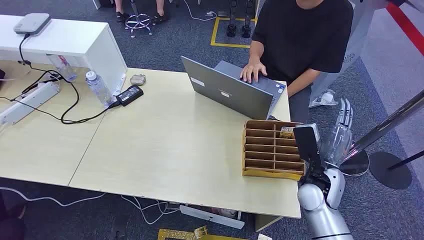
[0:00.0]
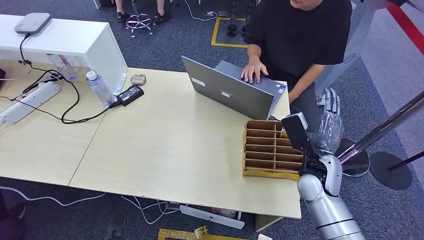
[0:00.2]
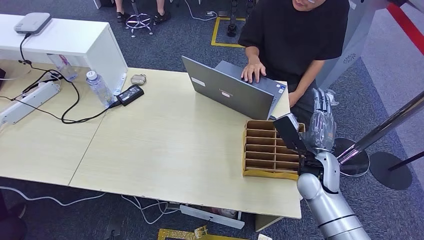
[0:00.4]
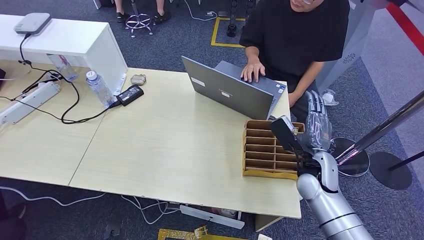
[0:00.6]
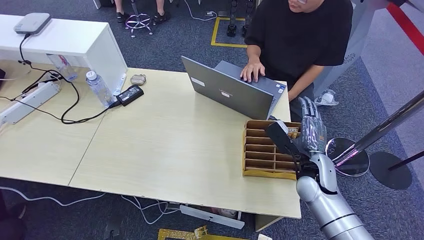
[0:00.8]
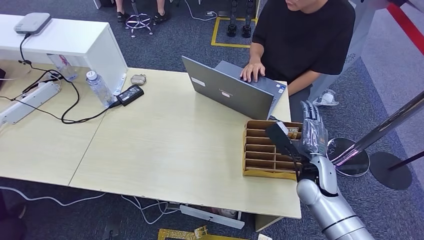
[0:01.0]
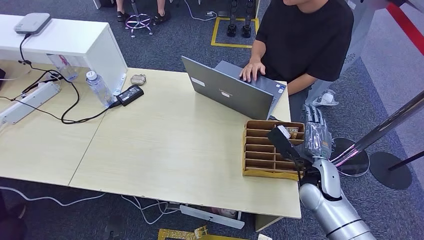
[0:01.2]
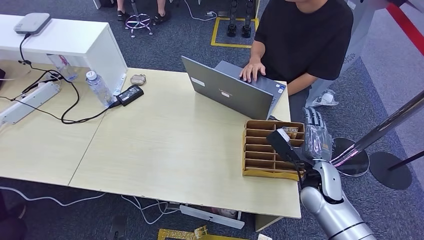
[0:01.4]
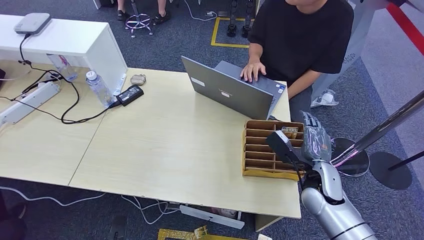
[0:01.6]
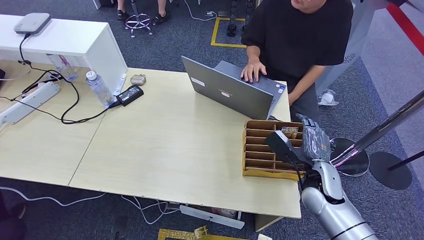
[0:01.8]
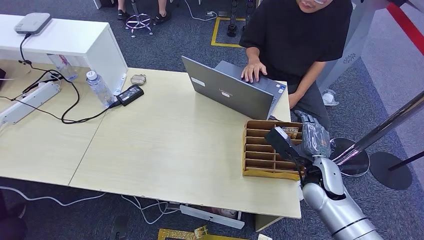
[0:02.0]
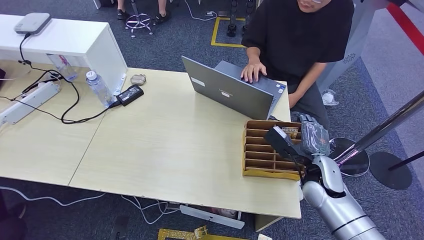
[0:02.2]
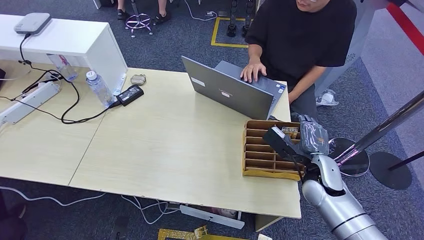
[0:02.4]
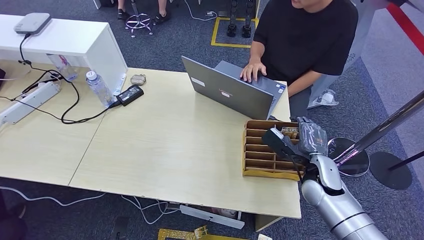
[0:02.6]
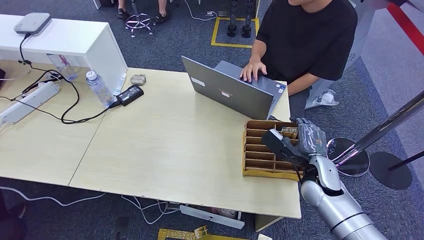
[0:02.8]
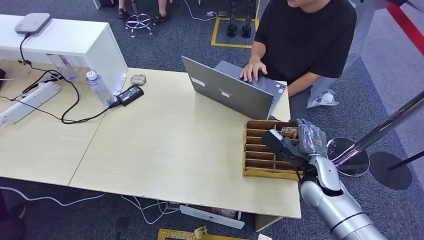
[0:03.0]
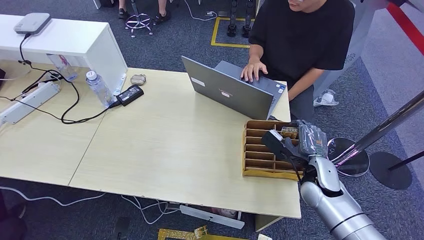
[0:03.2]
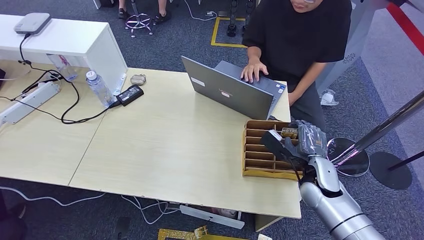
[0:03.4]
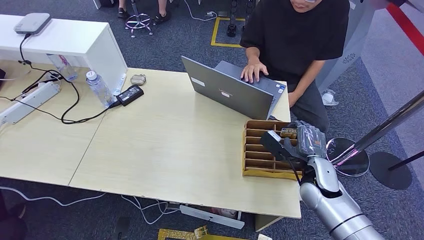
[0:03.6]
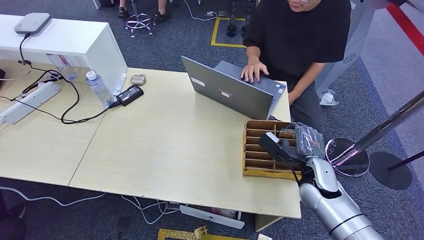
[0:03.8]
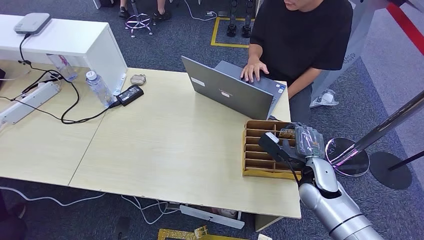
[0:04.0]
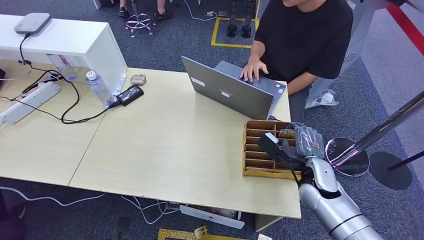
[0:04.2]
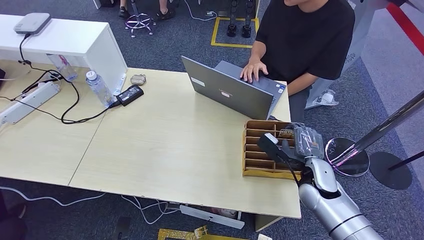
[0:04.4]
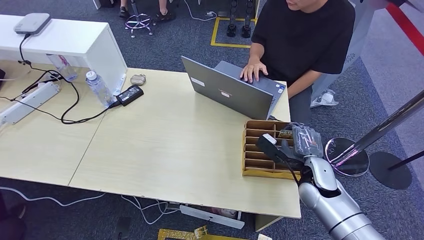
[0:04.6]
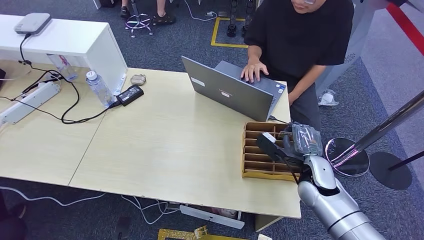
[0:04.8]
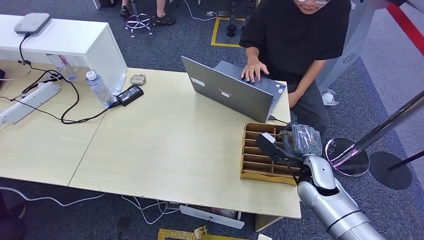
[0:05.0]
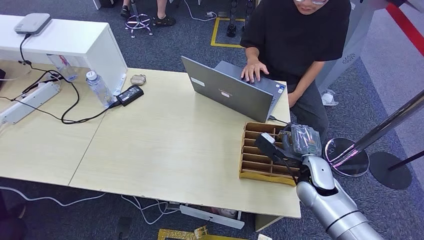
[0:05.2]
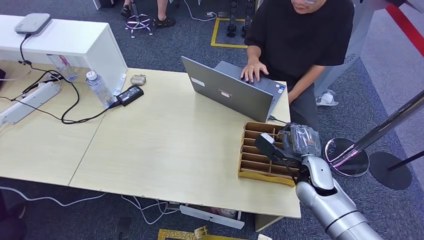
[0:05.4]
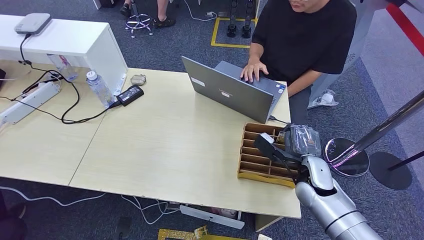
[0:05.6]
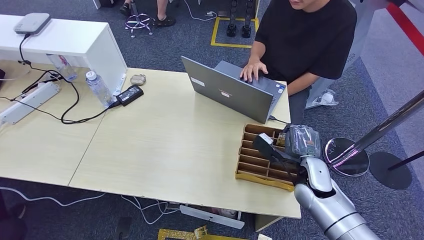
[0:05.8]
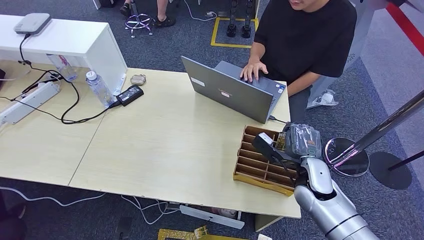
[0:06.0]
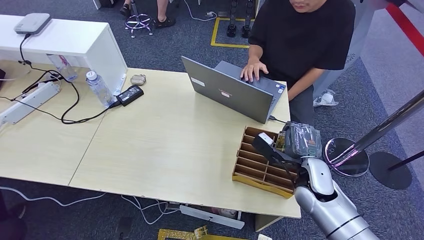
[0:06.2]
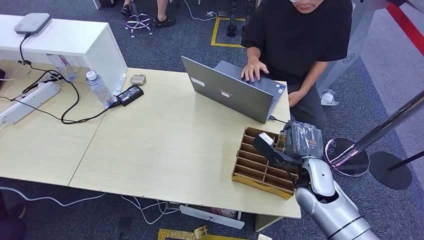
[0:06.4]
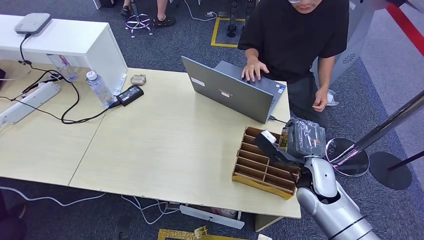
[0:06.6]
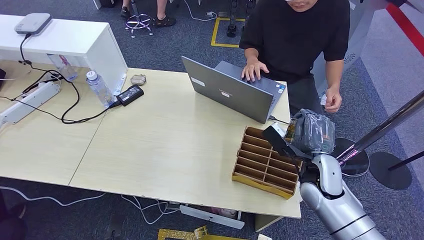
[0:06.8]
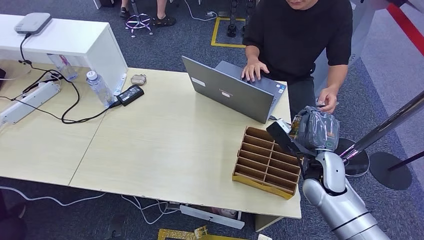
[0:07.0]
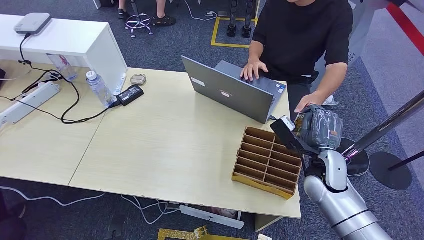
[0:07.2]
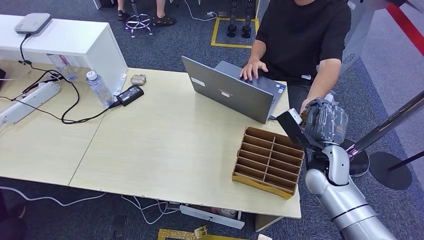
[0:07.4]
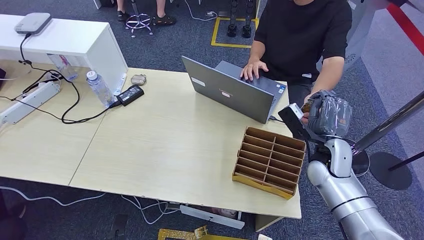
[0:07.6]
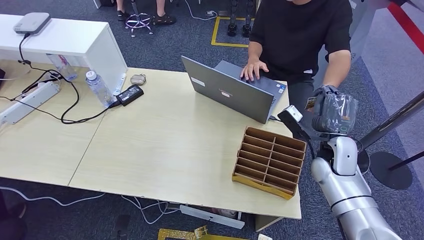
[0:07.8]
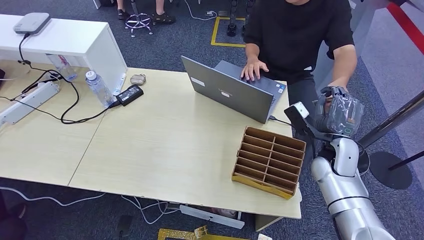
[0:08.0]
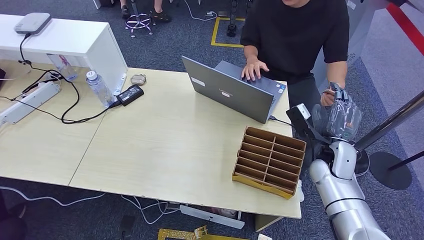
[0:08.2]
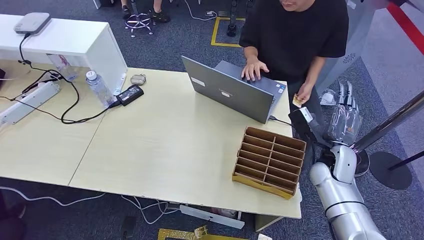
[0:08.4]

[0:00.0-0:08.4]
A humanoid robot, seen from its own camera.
Task of the whole recording: Pick up the card and hand it to the target person.
Step, 0:00.0 to 0:06.2: Pick up the key card from the card box.
Step, 0:06.4 to 0:08.2: Hand the key card to the target.
0:01.4 to 0:02.8: The hands make only small movements.
0:02.8 to 0:04.2: Both hands stay put.
0:04.2 to 0:05.6: The two hands keep their place.
0:05.6 to 0:07.0: There are only small adjustments of the hands.
0:07.0 to 0:08.4: The right hand ends up some 5 cm from where it was.

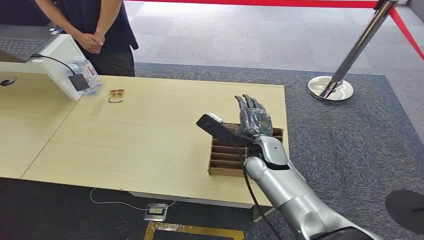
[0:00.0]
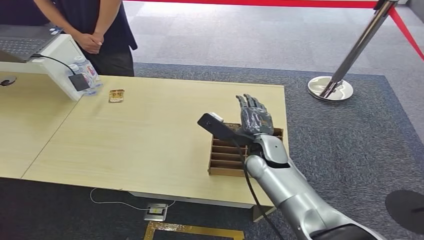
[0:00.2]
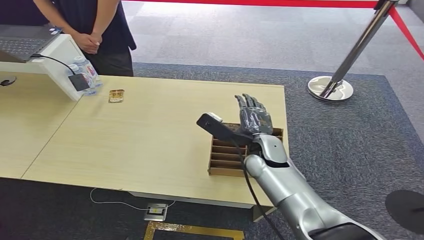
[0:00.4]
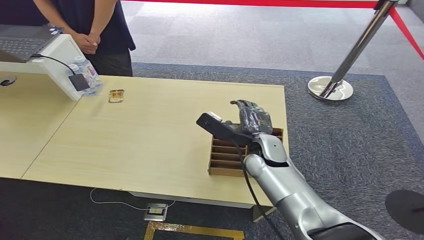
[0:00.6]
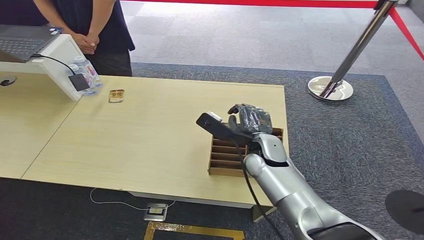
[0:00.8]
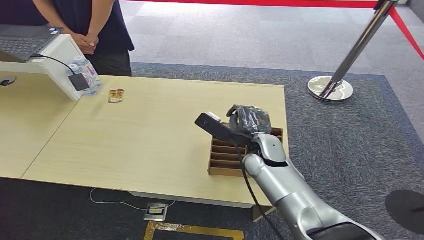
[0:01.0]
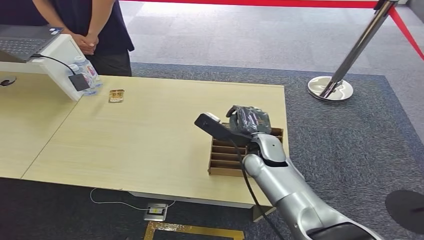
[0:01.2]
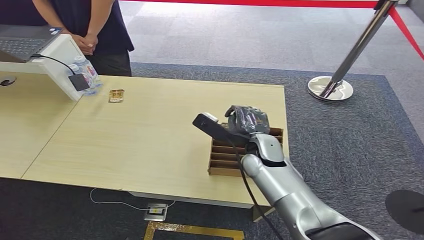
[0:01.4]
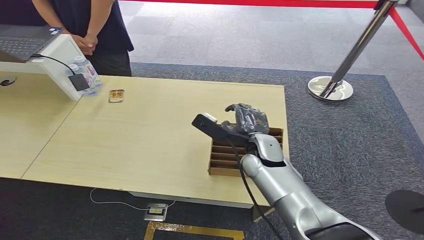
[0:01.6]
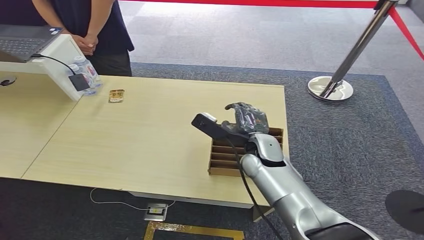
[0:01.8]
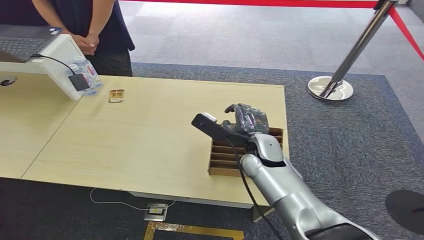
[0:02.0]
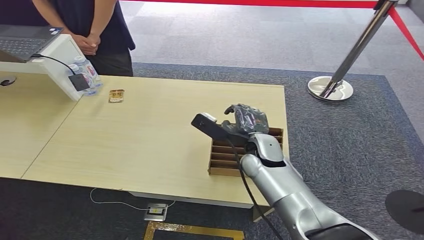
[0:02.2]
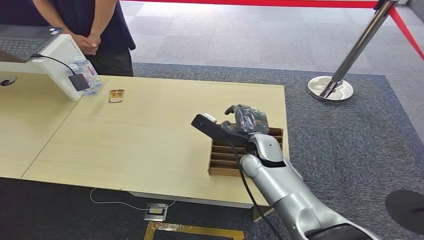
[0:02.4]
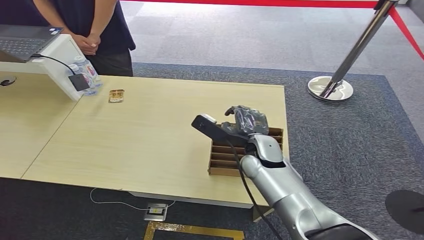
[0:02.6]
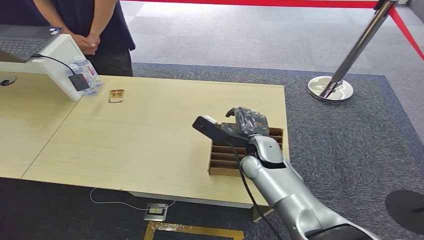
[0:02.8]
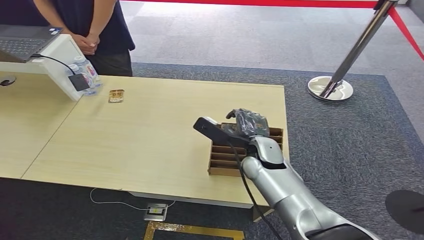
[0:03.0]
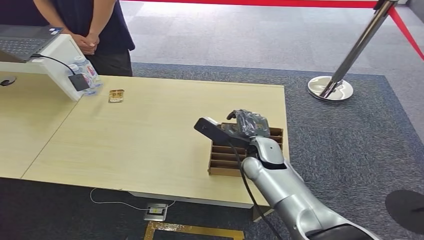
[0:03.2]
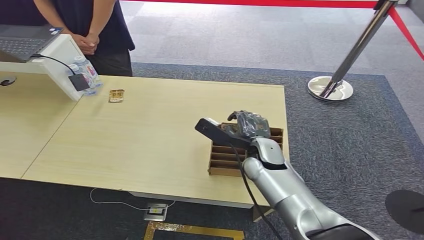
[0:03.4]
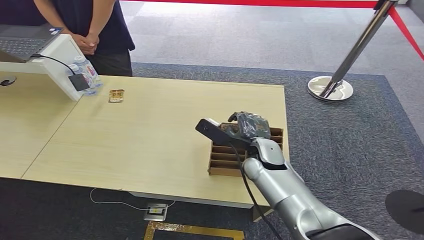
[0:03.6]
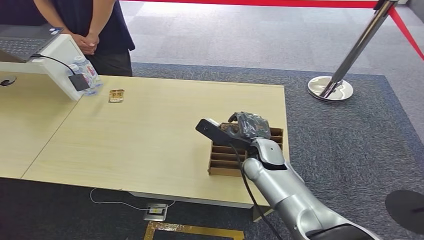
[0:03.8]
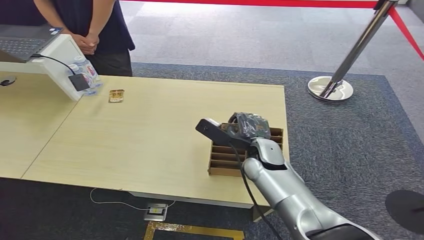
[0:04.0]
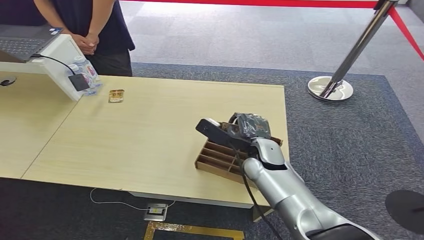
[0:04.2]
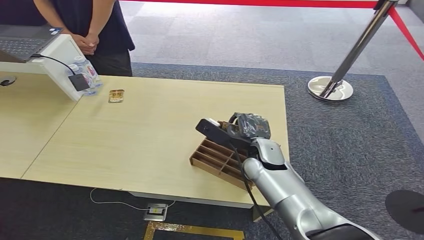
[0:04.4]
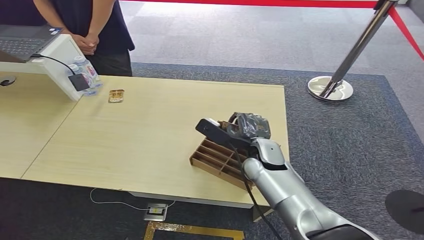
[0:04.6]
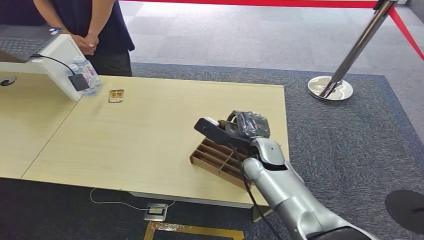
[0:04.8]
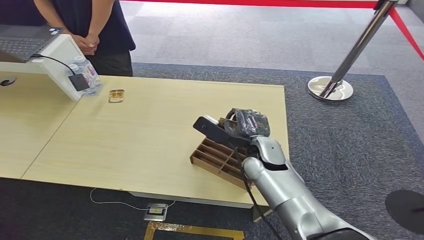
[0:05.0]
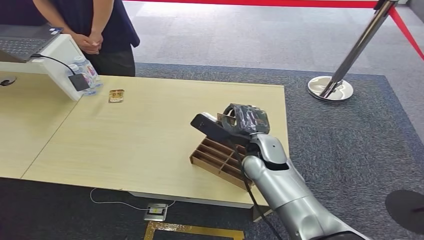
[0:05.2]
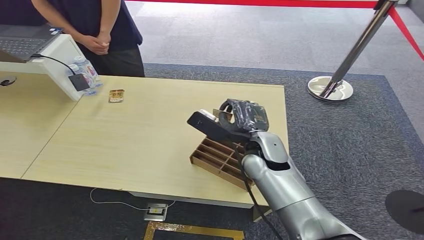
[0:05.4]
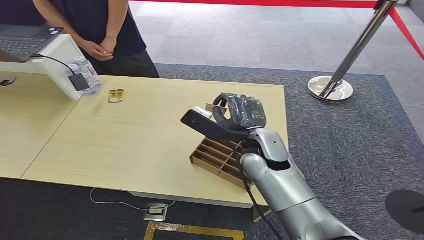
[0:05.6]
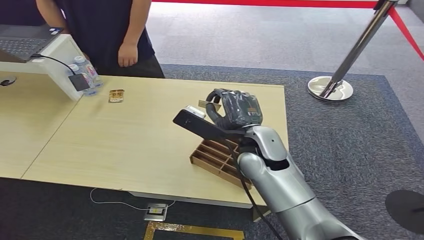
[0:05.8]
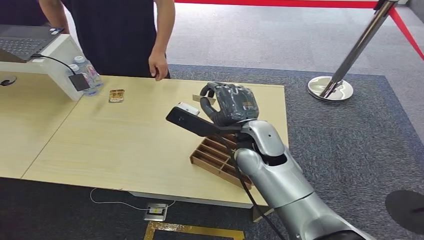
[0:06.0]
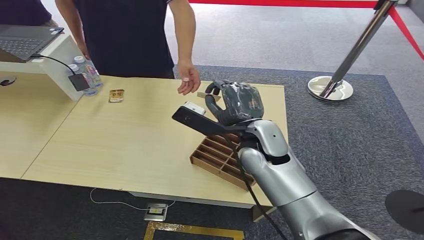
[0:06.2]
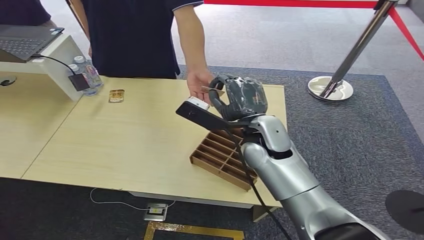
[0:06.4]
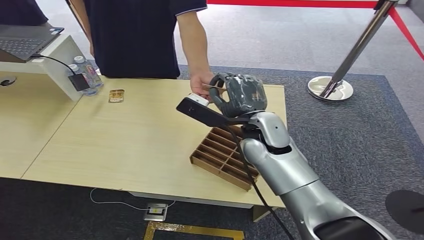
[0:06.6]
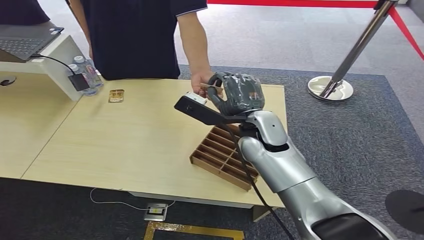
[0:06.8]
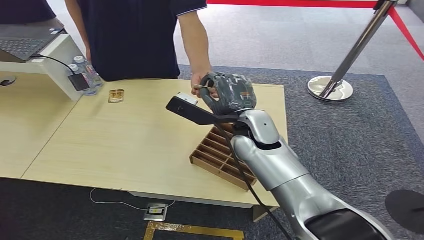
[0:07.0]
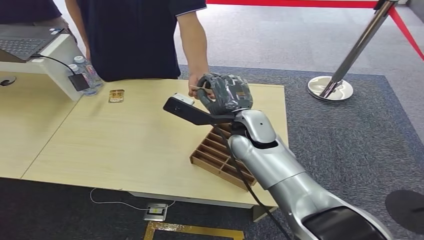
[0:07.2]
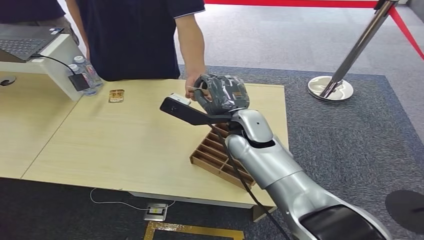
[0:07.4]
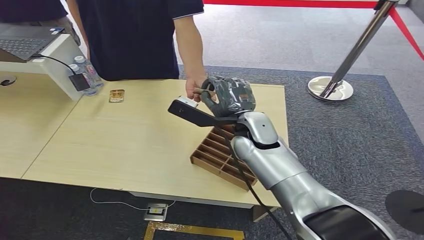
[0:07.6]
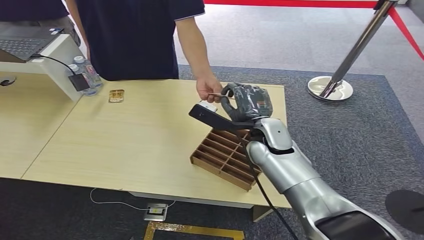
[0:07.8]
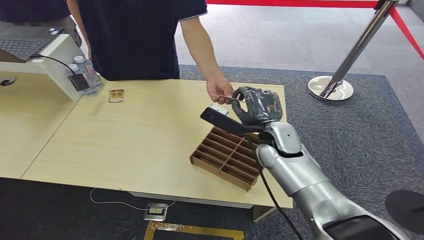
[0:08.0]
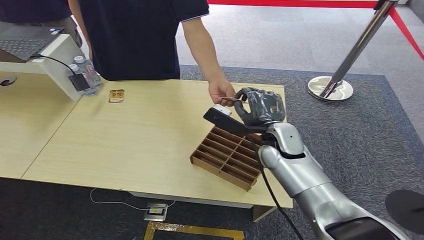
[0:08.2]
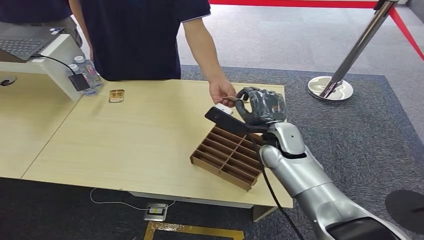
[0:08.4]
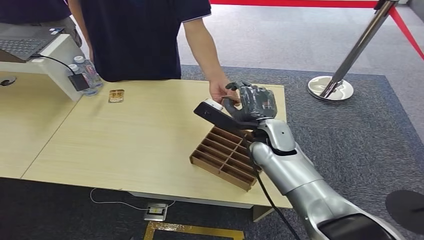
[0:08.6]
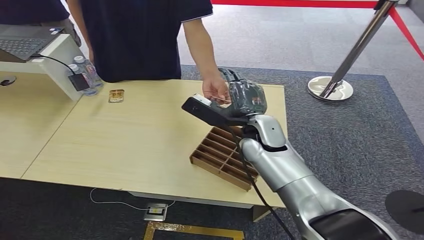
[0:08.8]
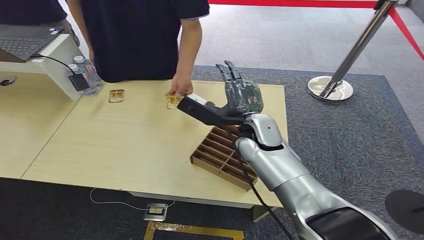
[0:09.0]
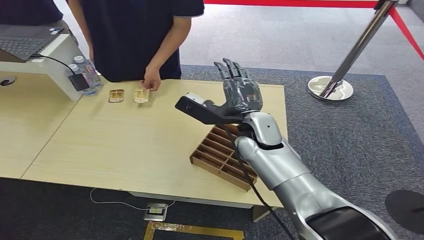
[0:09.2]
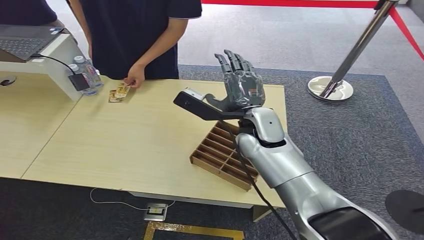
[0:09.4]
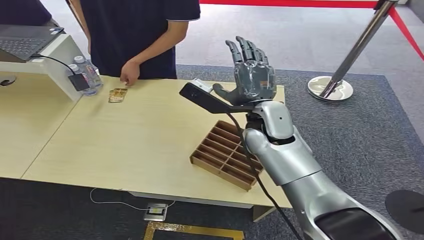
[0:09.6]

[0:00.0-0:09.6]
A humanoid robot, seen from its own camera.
Task of the whole recording: Pick up the card and hand it to the target person.
Step, 0:00.0 to 0:05.6: Pick up the key card from the card box.
Step, 0:05.8 to 0:09.4: Hand the key card to the target.
0:01.6 to 0:03.2: Both hands stay about where they are.
0:03.2 to 0:04.8: Neither hand changes place.
0:06.4 to 0:08.0: The right hand is displaced downward by roughly 5 cm.
0:08.0 to 0:09.6: The right hand goes some 10 cm upward.
